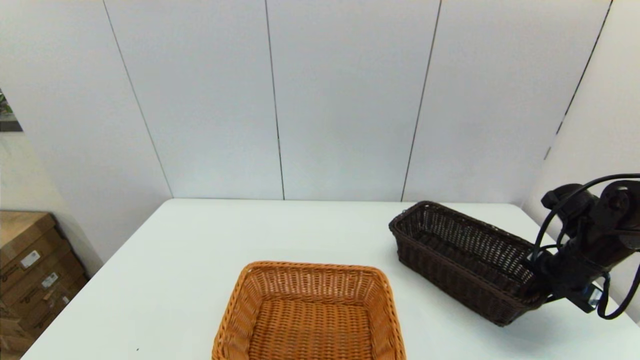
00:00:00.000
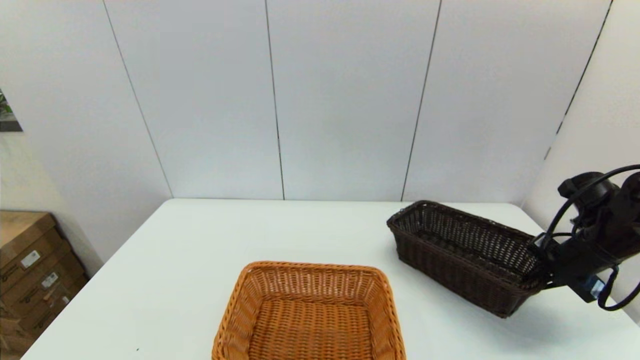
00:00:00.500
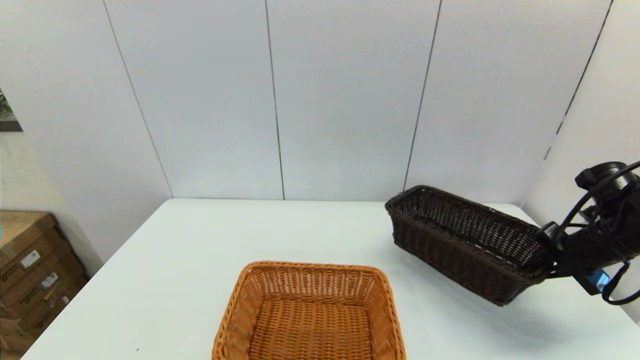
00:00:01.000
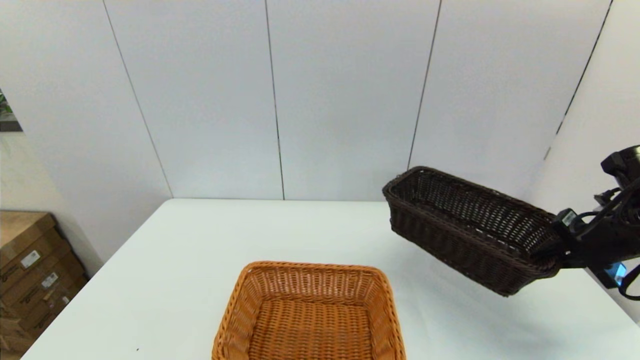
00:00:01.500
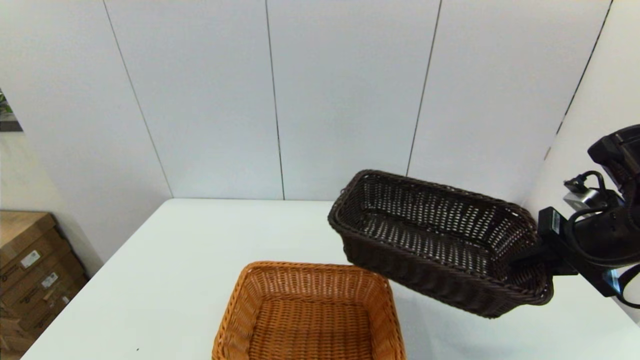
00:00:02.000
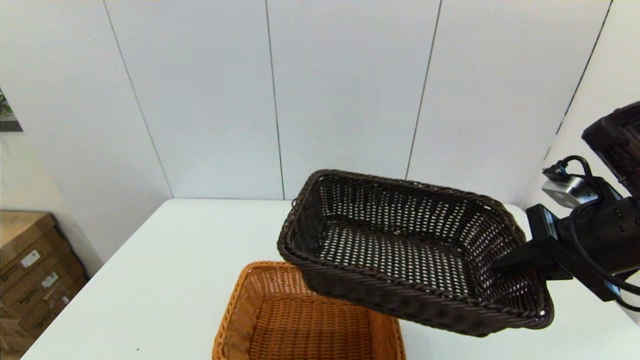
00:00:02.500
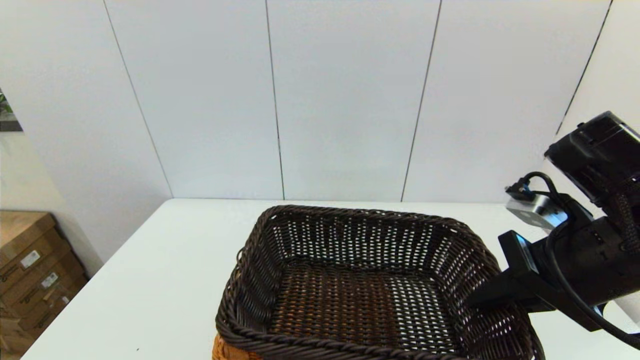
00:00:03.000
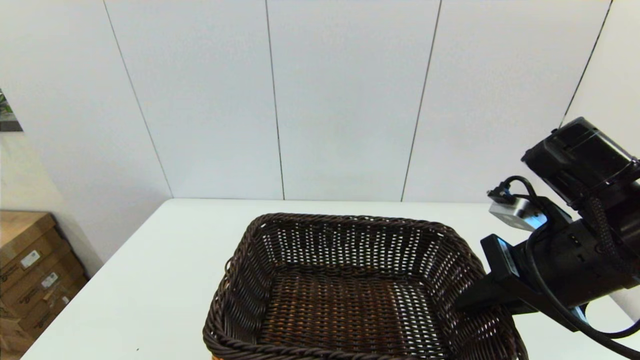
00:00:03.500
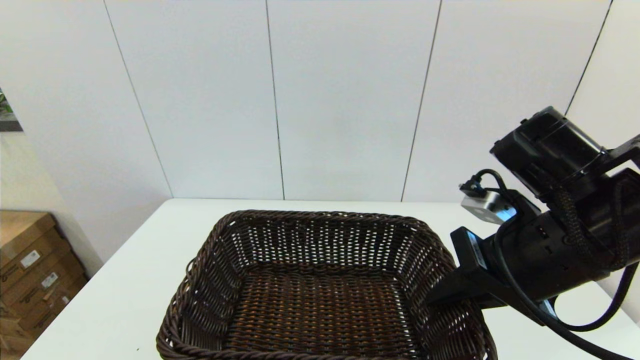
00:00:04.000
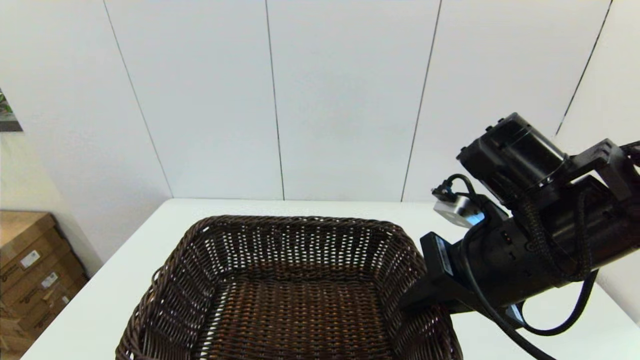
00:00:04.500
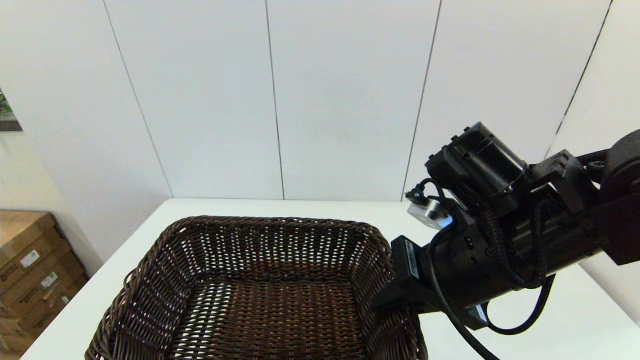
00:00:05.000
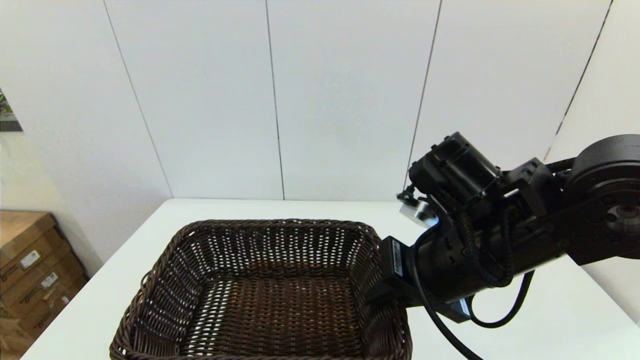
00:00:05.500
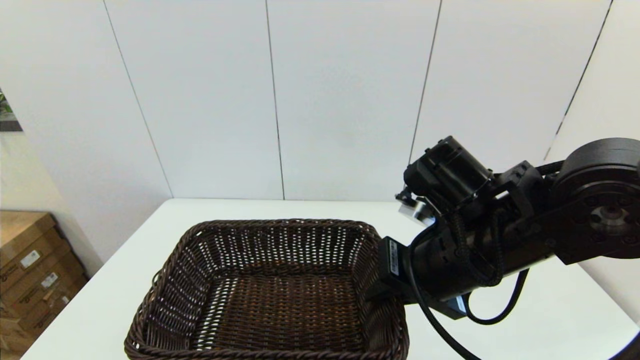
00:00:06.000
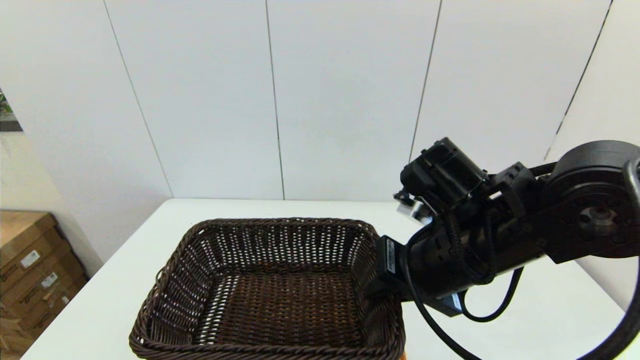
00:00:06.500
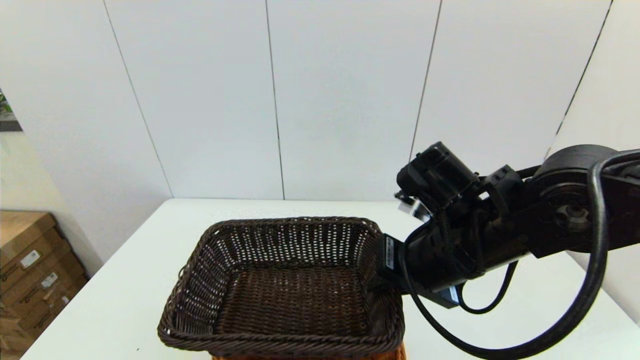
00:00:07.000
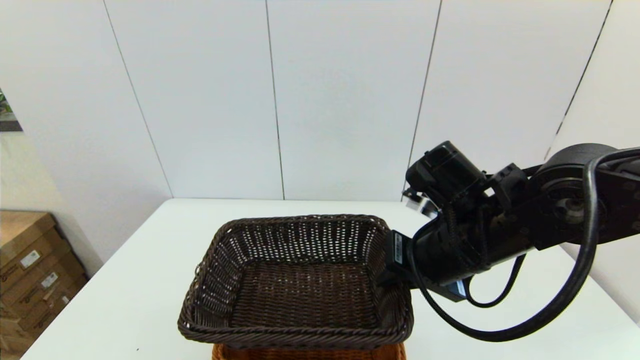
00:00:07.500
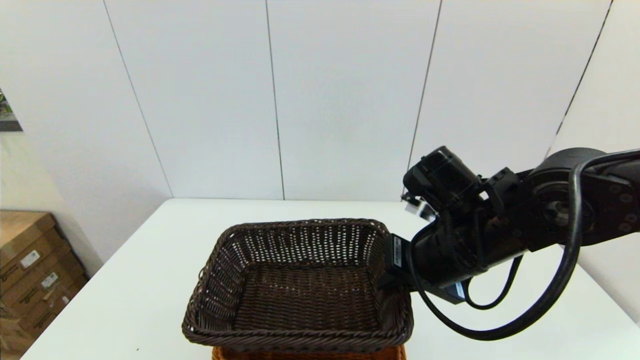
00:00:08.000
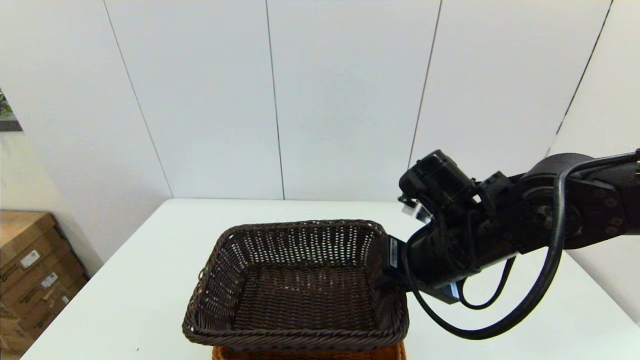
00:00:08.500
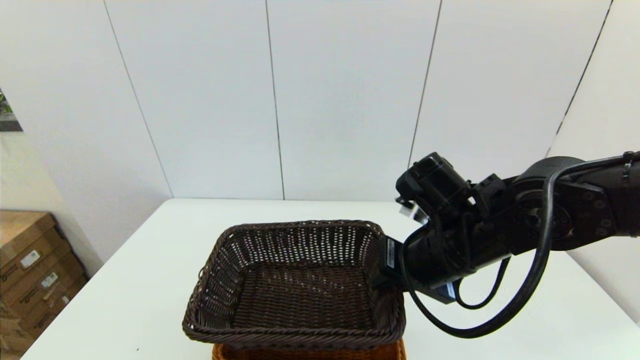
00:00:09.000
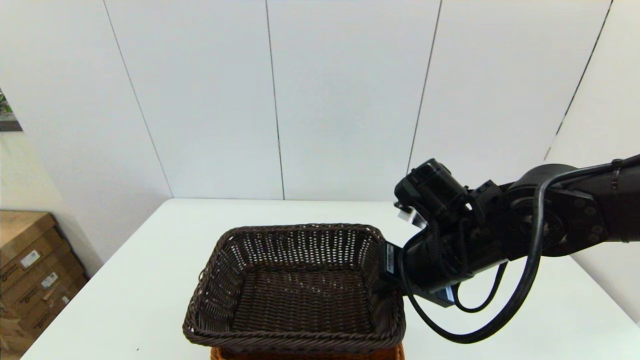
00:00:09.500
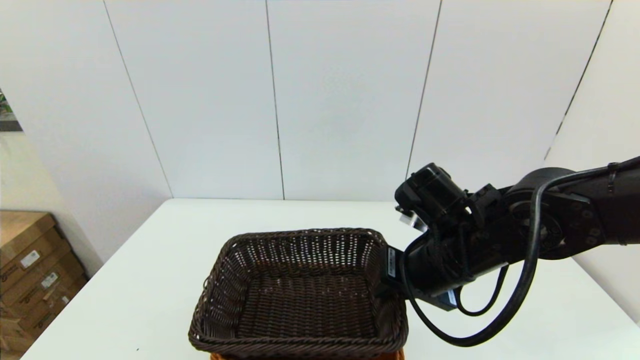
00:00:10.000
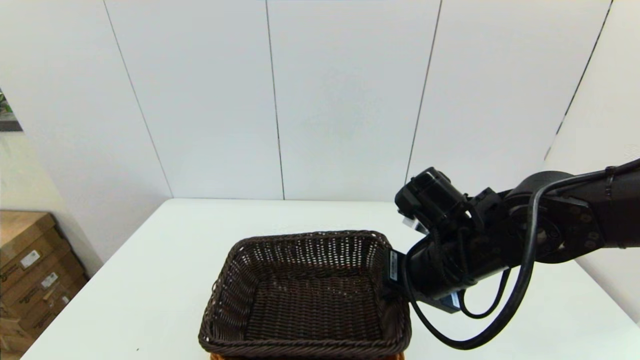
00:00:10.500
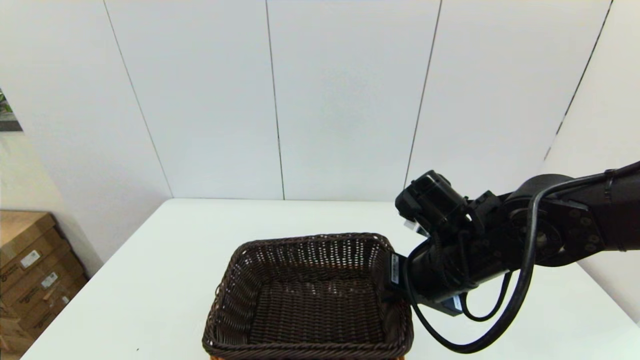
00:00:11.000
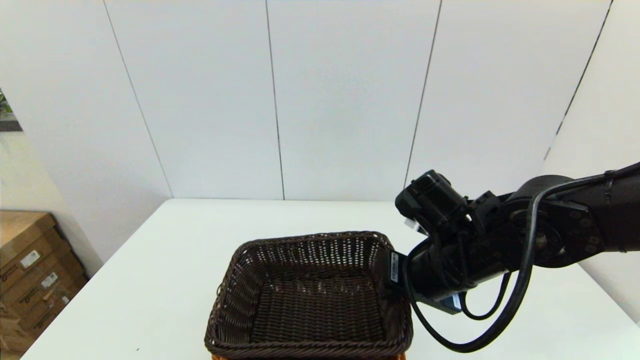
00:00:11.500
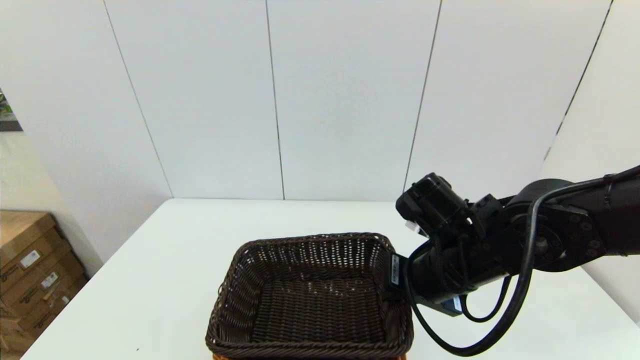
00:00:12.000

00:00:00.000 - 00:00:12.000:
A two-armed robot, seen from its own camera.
Task of the whole recording: stack a basket on top of another basket.
00:00:00.000 - 00:00:02.000: The right gripper travels upward, backward and to the left by some 15 cm.
00:00:02.000 - 00:00:04.000: The right gripper heads to the left, covering roughly 10 cm.
00:00:04.000 - 00:00:06.000: The right gripper is displaced to the left by about 5 cm.
00:00:06.000 - 00:00:10.000: The grippers stay close to where they were, moving slightly.
00:00:10.000 - 00:00:12.000: Neither gripper changes place.

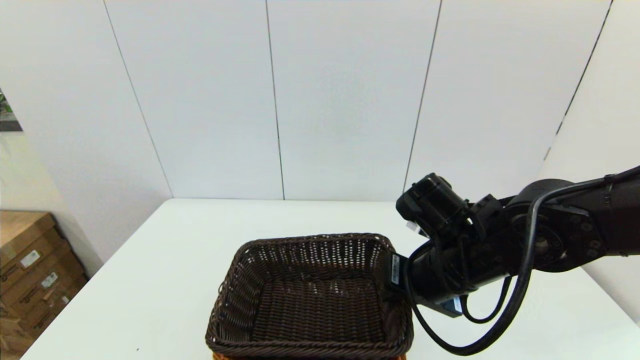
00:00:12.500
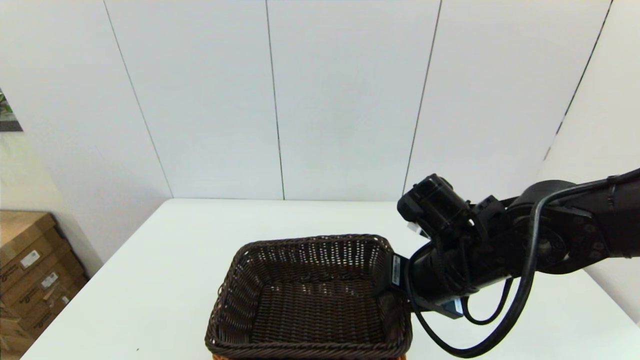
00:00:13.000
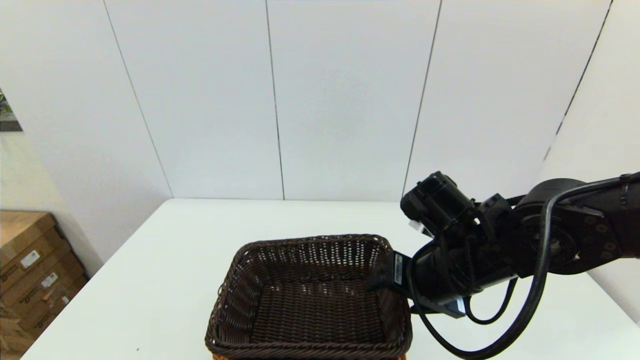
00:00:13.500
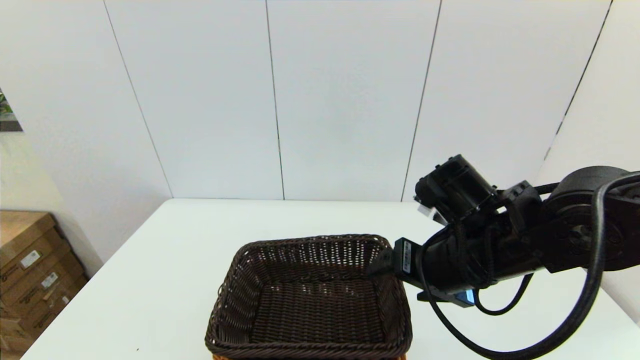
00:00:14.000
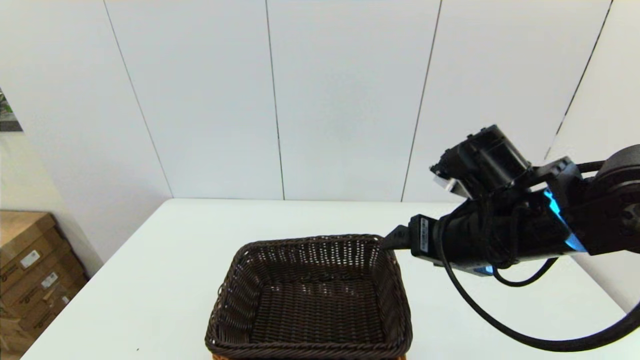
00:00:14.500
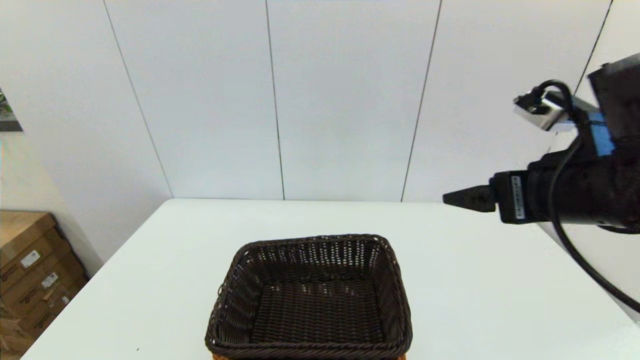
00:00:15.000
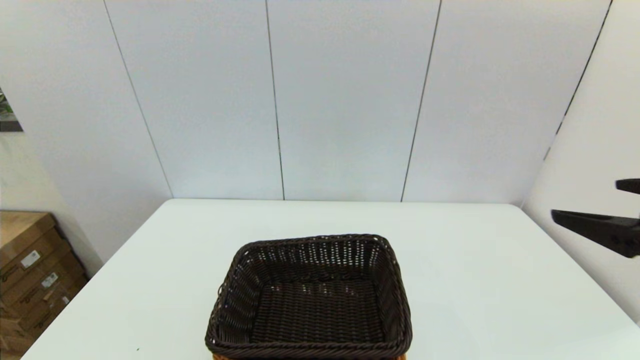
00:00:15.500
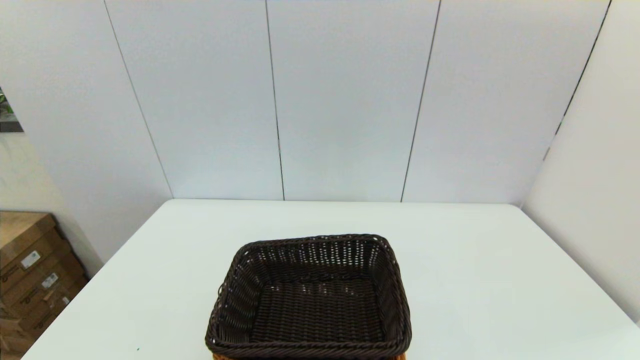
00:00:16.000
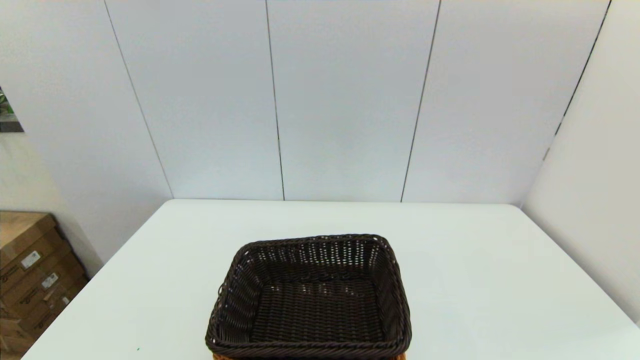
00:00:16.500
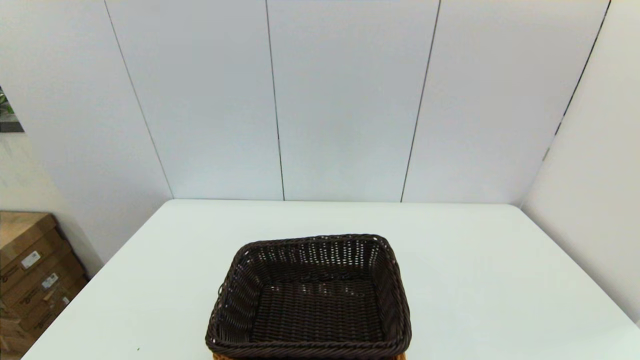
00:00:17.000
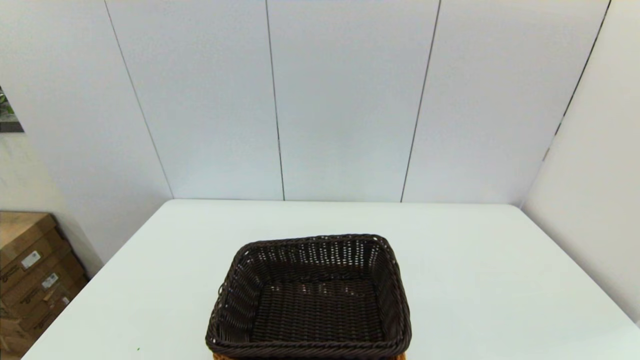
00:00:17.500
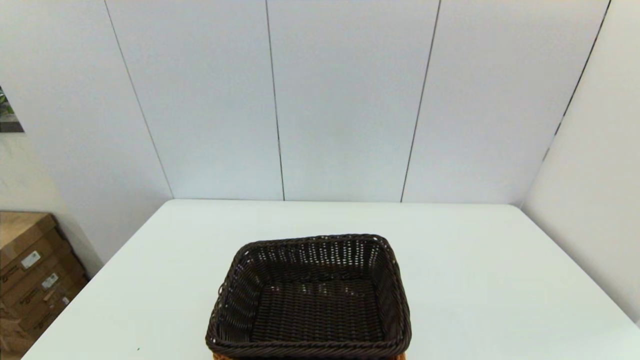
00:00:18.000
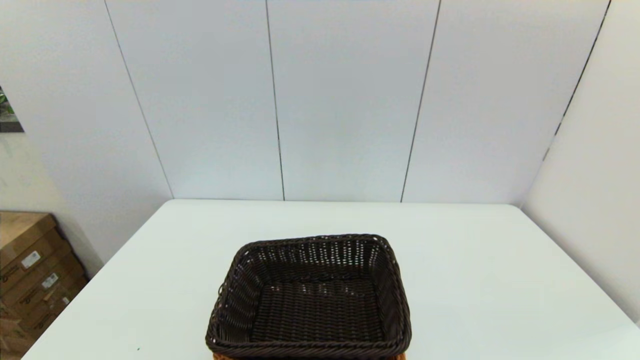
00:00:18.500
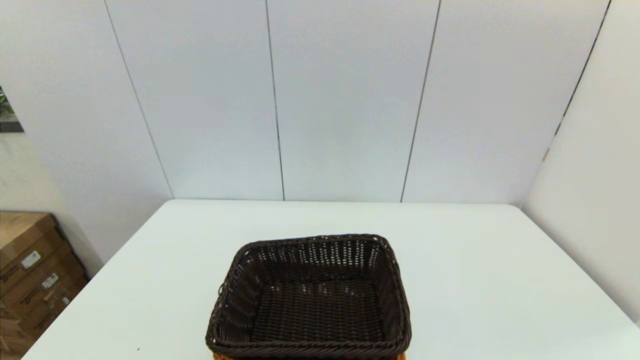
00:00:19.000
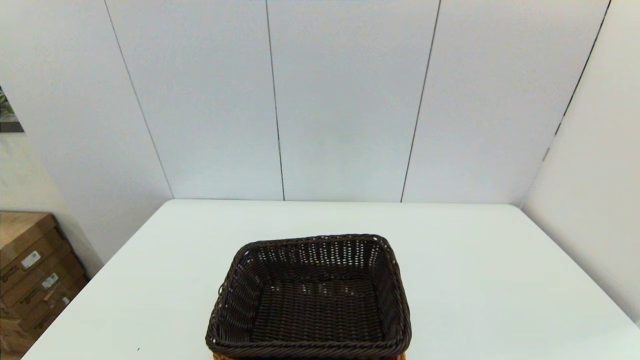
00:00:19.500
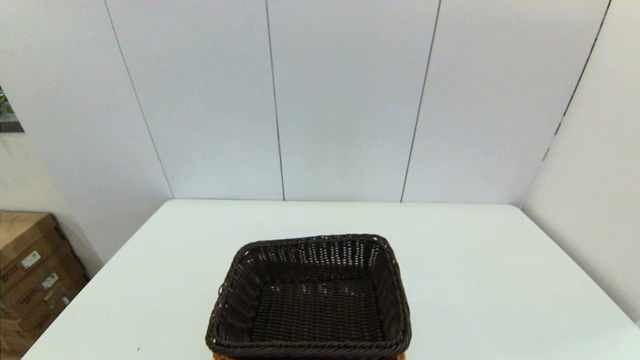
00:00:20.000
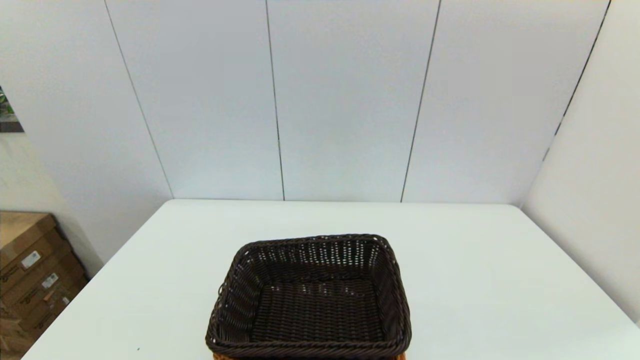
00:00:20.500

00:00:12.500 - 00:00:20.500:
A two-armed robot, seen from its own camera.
Task of the whole recording: stack a basket on top of another basket.
00:00:12.500 - 00:00:14.500: The right gripper moves upward, approximately 5 cm, and opens up.
00:00:14.500 - 00:00:16.500: The right gripper shifts about 30 cm backward and to the right.
